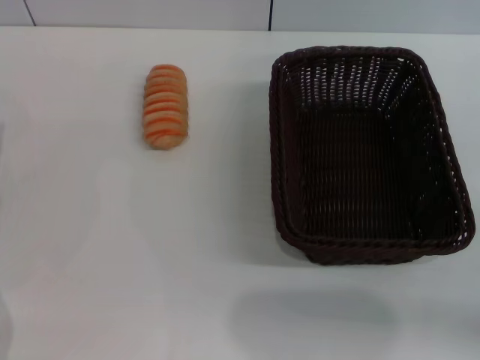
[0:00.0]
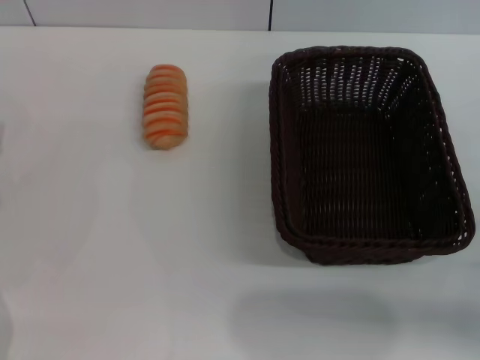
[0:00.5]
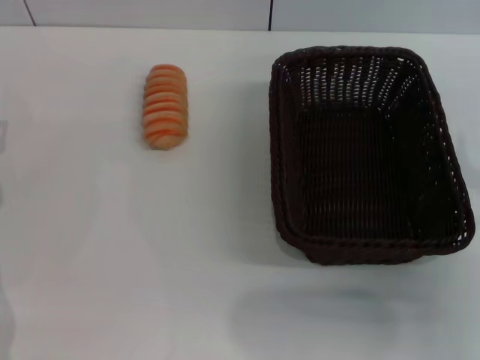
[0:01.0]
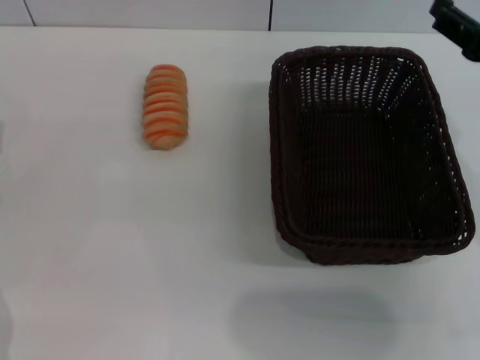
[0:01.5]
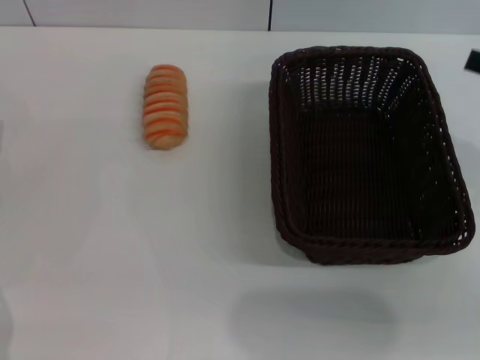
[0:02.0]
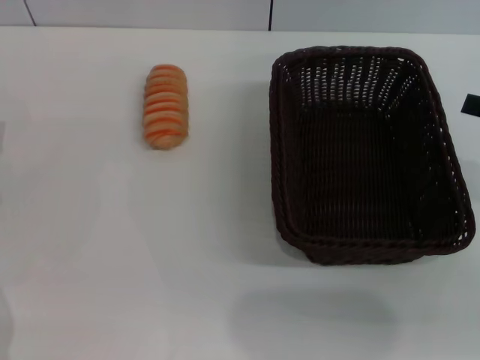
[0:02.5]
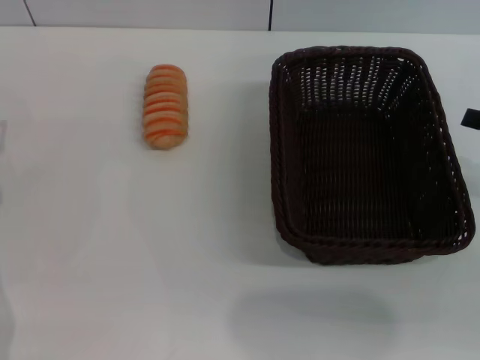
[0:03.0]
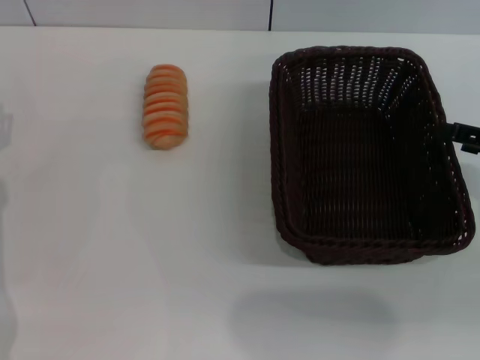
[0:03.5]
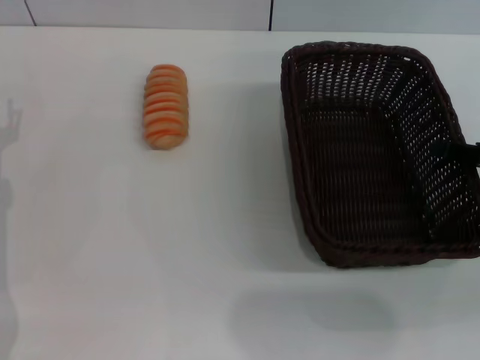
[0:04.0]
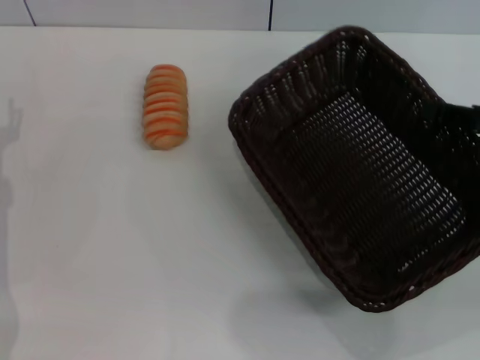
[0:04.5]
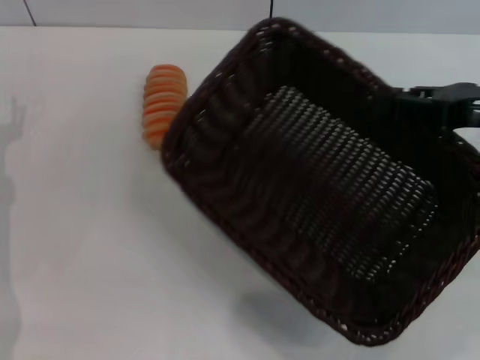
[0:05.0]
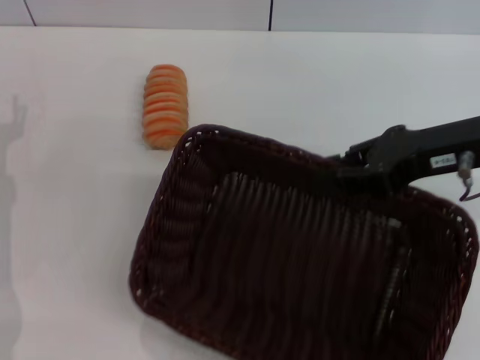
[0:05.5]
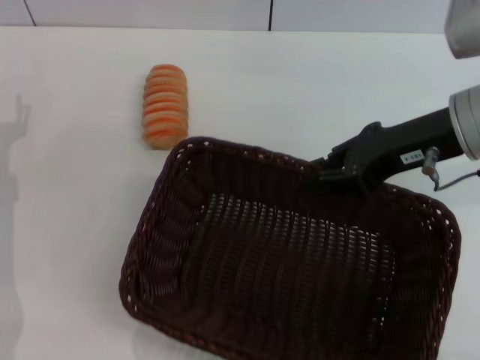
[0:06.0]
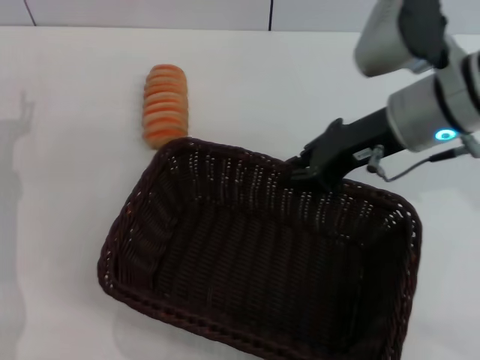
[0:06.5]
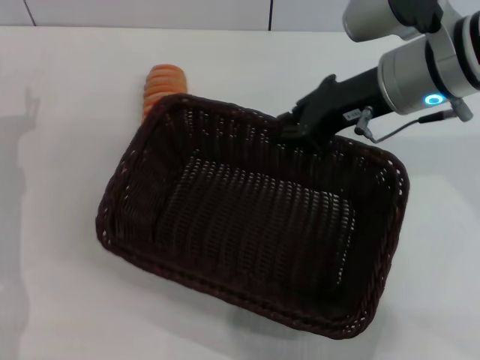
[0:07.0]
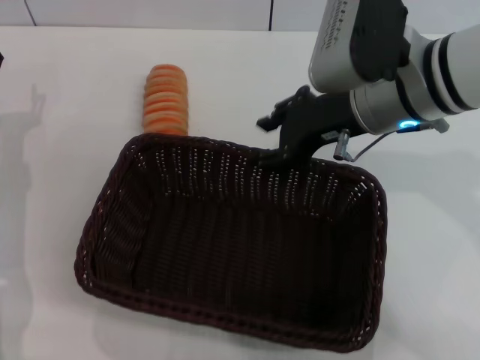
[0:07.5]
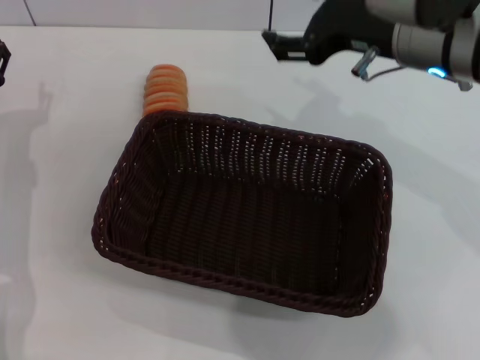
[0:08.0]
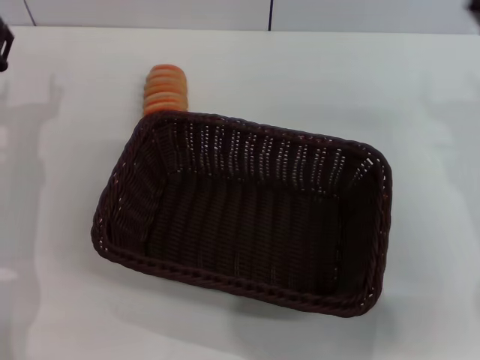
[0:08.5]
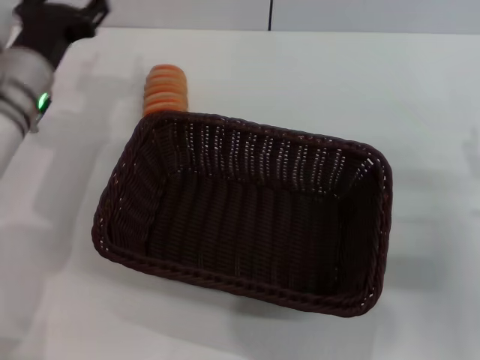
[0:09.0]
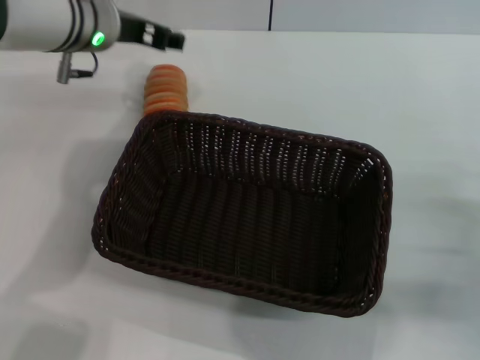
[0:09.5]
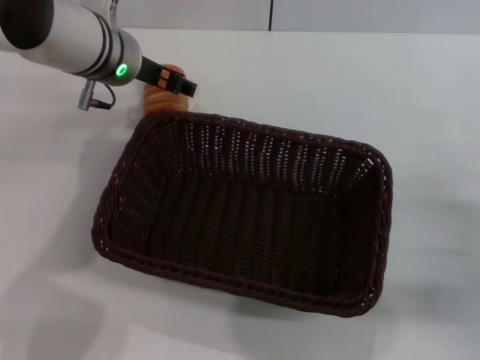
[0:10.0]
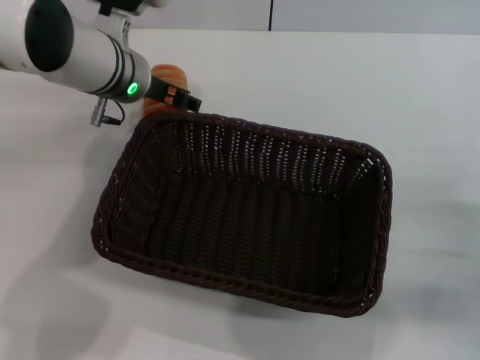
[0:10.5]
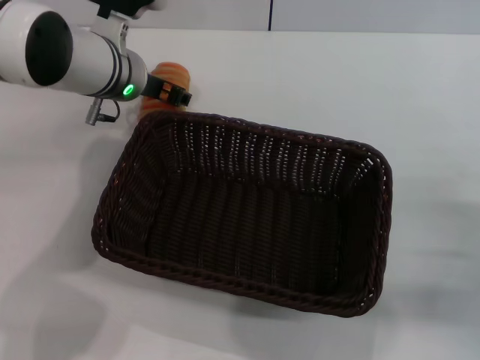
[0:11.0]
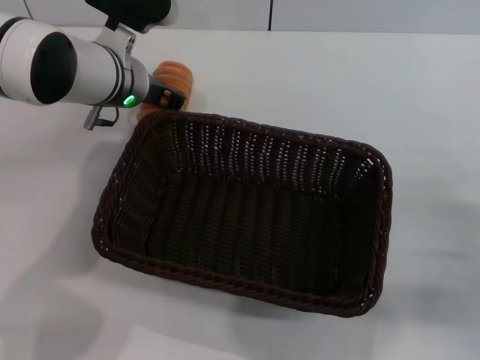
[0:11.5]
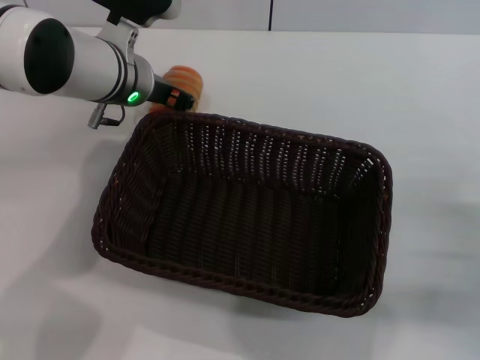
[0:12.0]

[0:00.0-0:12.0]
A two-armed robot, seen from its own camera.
Step, 0:00.0 to 0:04.5: Pick up the dark basket with the right gripper.
Step, 0:05.0 to 0:07.5: Place the dark basket in the center of view with the right gripper.
0:02.0 to 0:04.0: The right gripper moves downward, approximately 10 cm.
0:04.0 to 0:06.0: The right gripper shifts approximately 15 cm to the left and upward, and closes up.
0:06.0 to 0:08.0: The right gripper ends up approximately 5 cm from where it was, and opens its fingers.
0:08.0 to 0:10.0: The right gripper moves downward, backward and to the right, roughly 25 cm; the left gripper is displaced to the right, upward and forward by some 20 cm.
0:10.0 to 0:12.0: The left gripper closes.

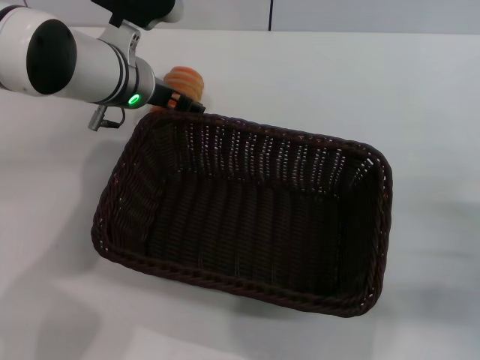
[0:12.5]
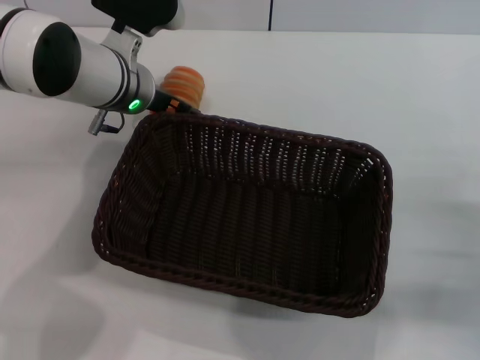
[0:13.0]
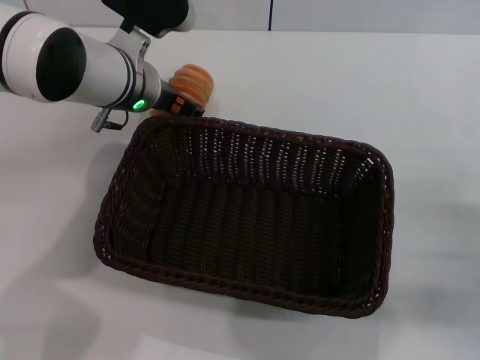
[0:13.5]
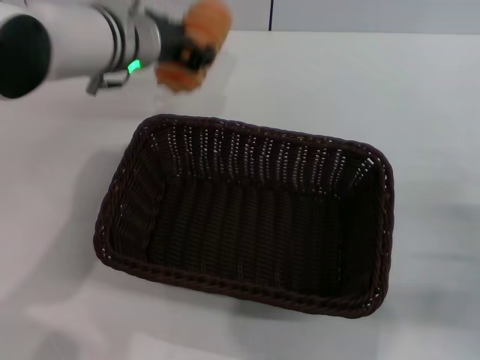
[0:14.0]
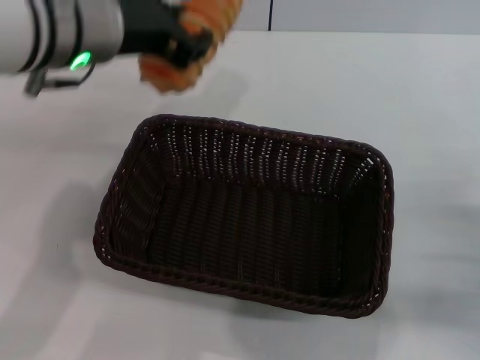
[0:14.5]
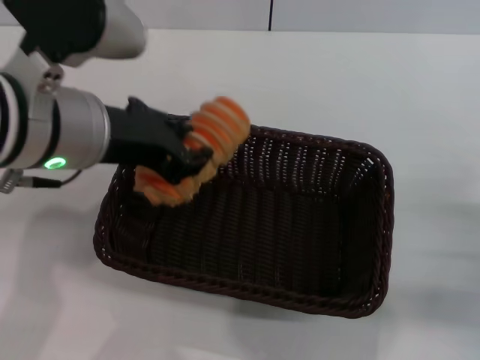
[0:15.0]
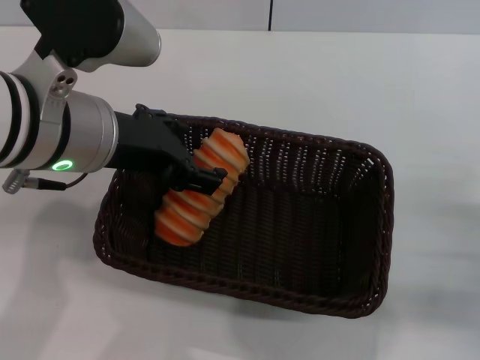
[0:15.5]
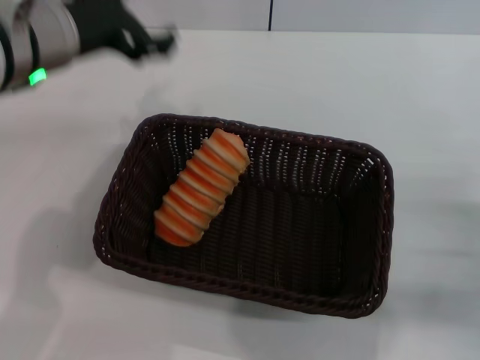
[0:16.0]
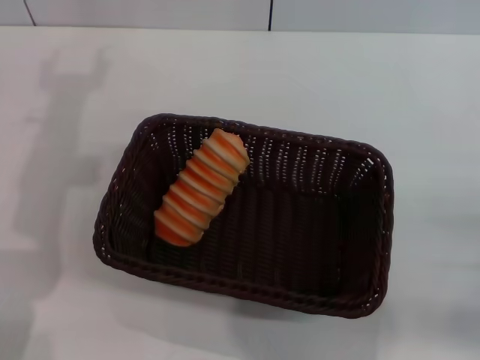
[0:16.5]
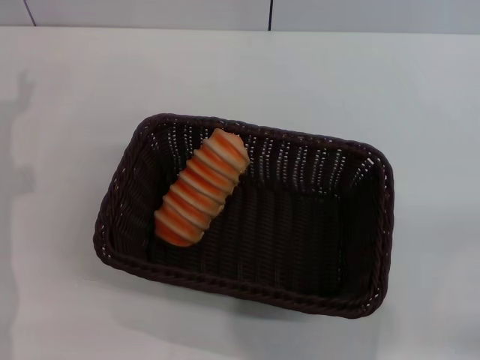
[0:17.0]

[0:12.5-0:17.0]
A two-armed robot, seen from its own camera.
Step, 0:14.5 to 0:15.5: Place the long bread into the dark basket with the left gripper.
0:12.5 to 0:14.5: The left gripper is displaced upward and backward by some 15 cm, and closes its fingers.
0:14.5 to 0:17.0: The left gripper goes some 25 cm to the left and downward, and opens its fingers. Meanwhile the right gripper ends up about 5 cm from where it was.

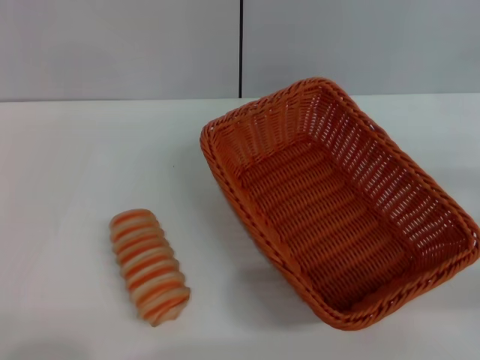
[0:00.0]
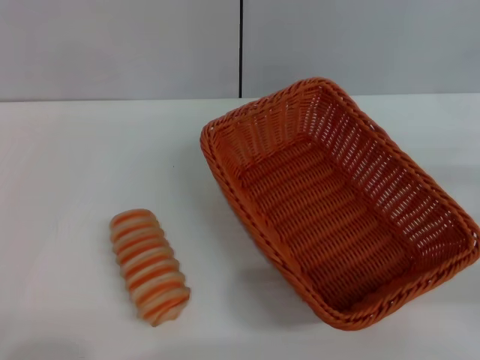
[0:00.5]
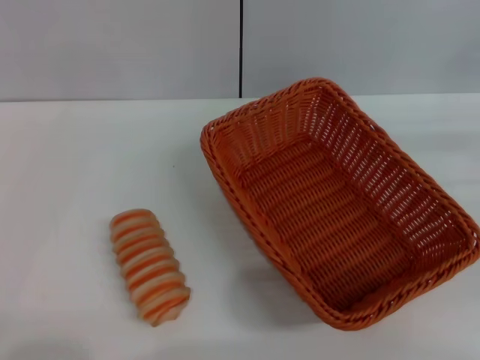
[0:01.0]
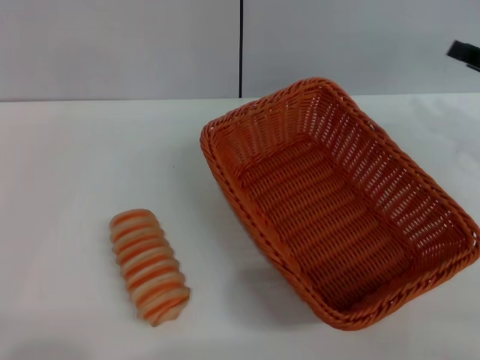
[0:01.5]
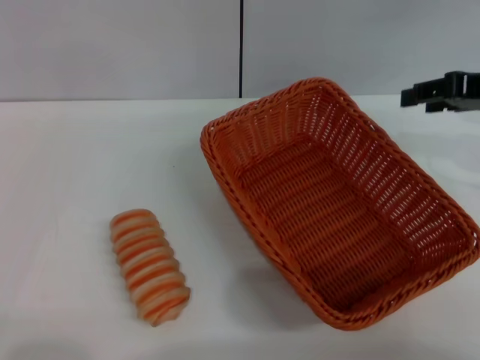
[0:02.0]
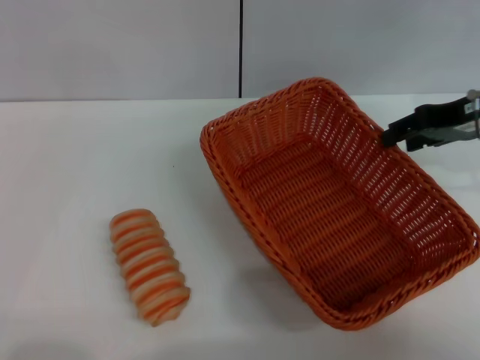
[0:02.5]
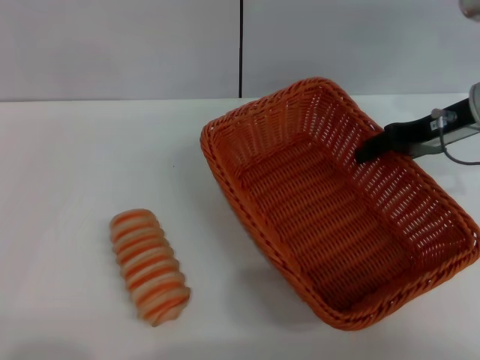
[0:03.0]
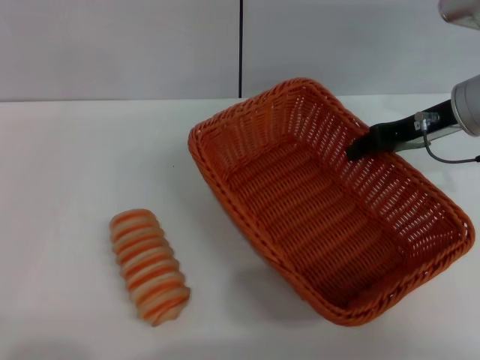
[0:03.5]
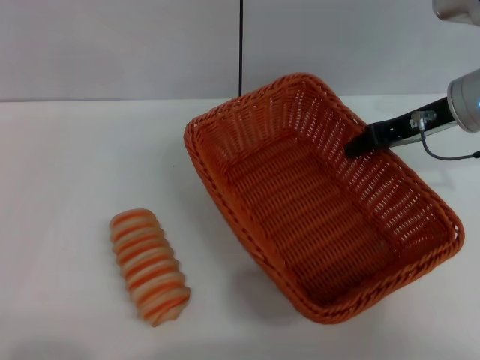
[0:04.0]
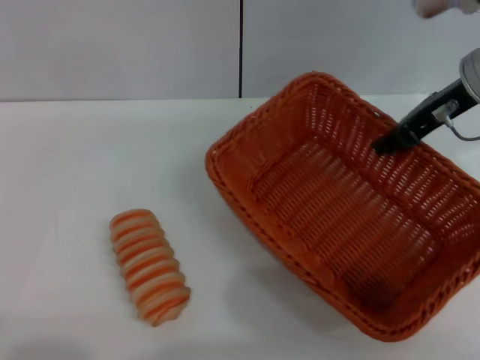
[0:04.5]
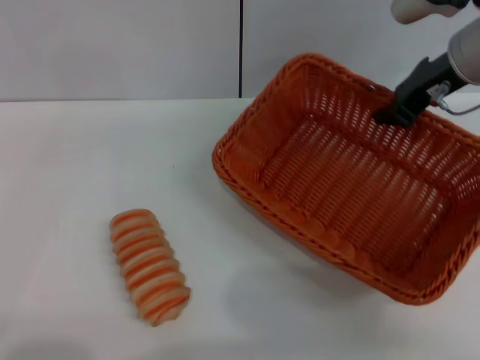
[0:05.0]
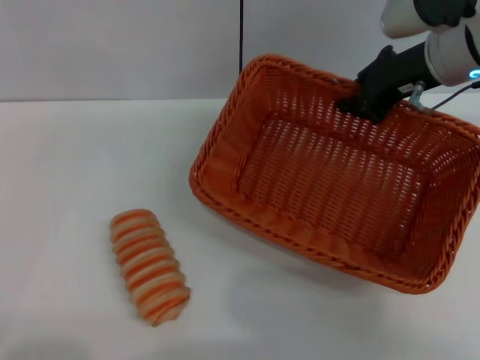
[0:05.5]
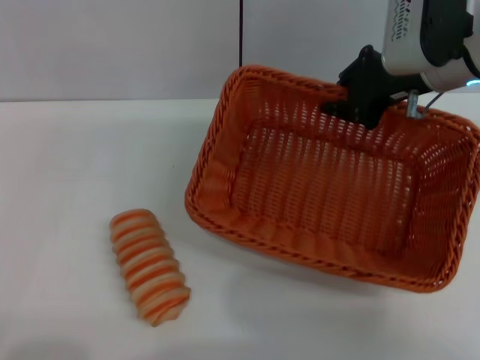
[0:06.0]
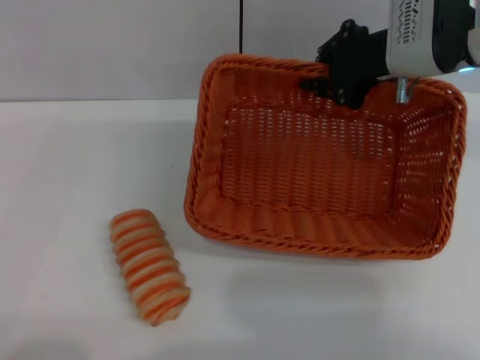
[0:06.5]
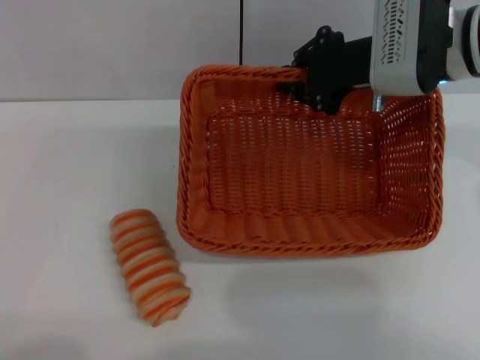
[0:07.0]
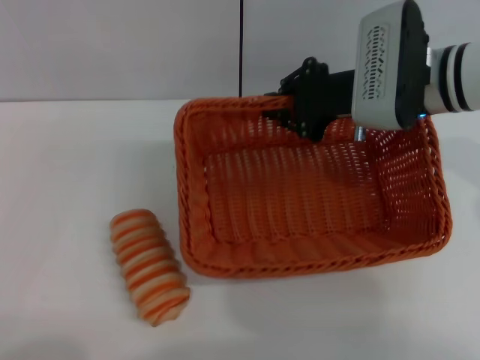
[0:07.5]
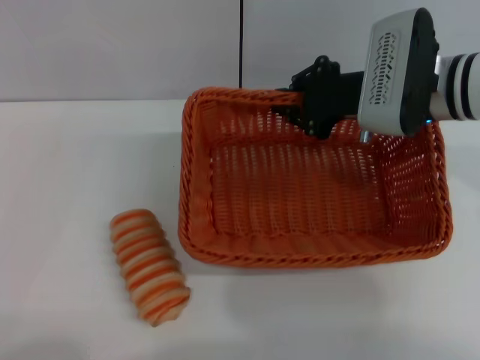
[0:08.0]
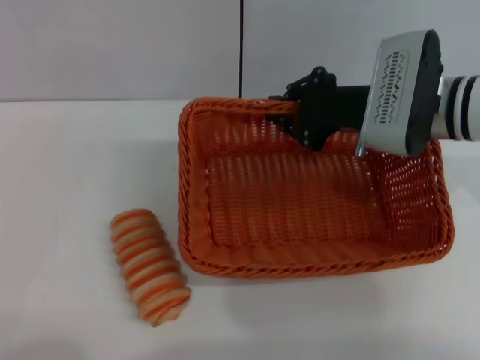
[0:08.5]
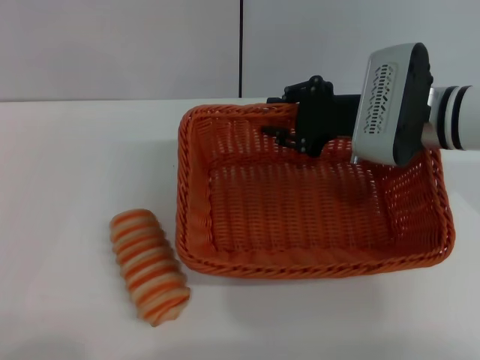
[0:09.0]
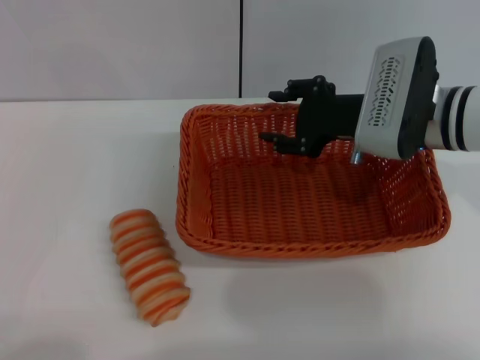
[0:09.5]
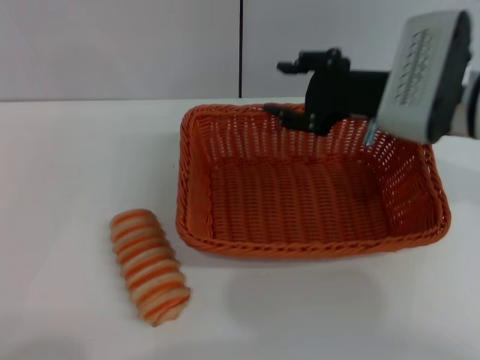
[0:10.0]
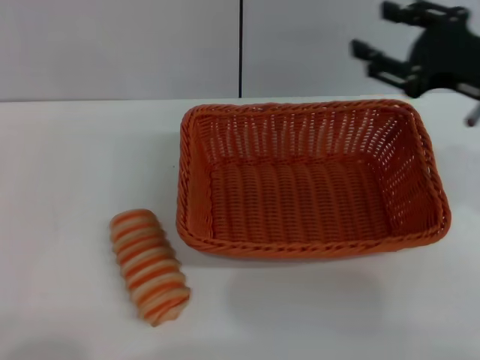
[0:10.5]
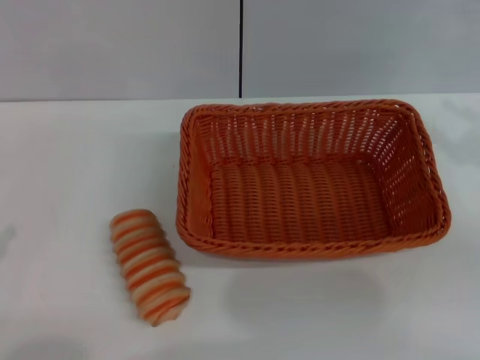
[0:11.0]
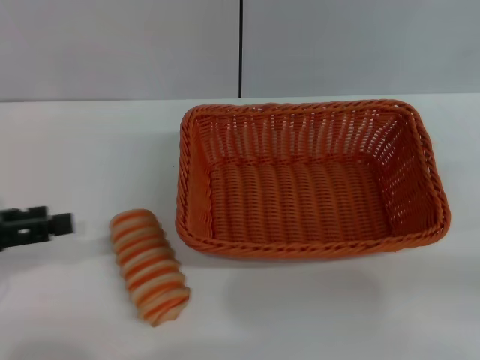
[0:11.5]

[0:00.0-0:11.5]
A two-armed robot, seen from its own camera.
Step, 0:00.0 to 0:05.0: Pick up the light basket with the right gripper.
Step, 0:05.5 to 0:10.0: Place the light basket in the center of view with the right gripper.
0:00.0 to 0:02.0: The right gripper travels upward, forward and to the left by approximately 20 cm.
0:02.0 to 0:04.0: The right gripper shifts roughly 10 cm to the left and downward, and closes its fingers.
0:04.0 to 0:06.0: The left gripper travels backward by some 5 cm. The right gripper shifts by roughly 5 cm.
0:06.0 to 0:07.5: The left gripper moves backward, roughly 5 cm, while the right gripper shifts by roughly 5 cm.
0:07.5 to 0:09.5: The right gripper opens.
0:09.5 to 0:11.5: The left gripper heads forward and upward, covering roughly 20 cm. The right gripper is displaced to the right and backward by approximately 25 cm.
